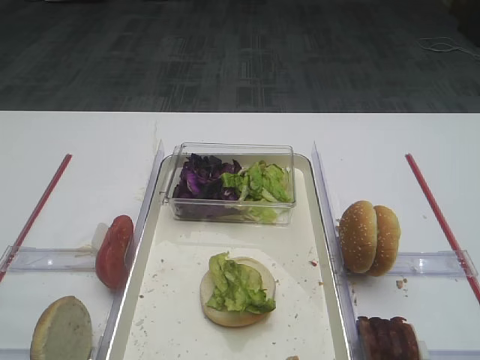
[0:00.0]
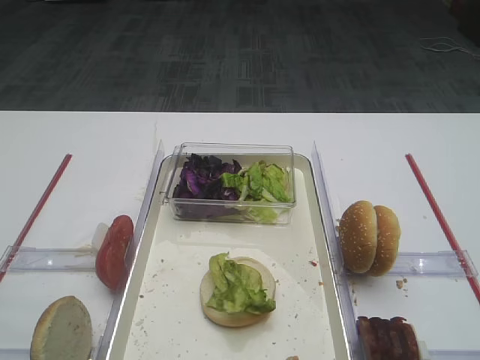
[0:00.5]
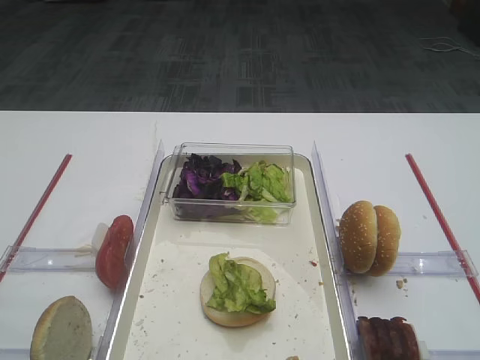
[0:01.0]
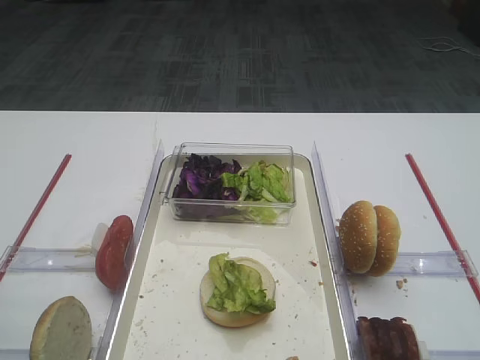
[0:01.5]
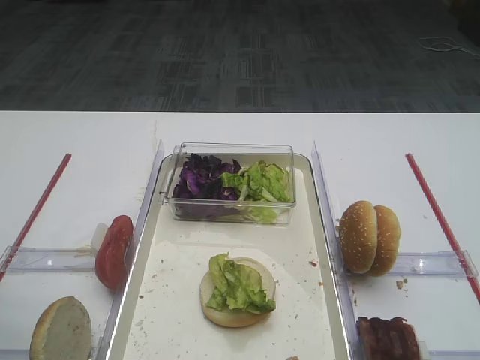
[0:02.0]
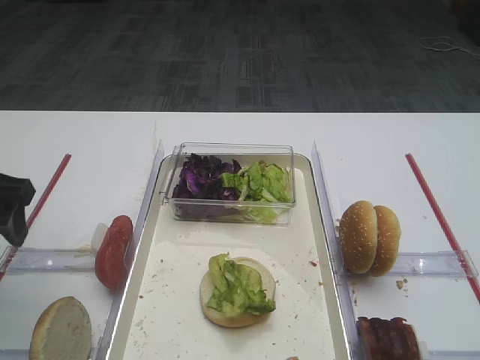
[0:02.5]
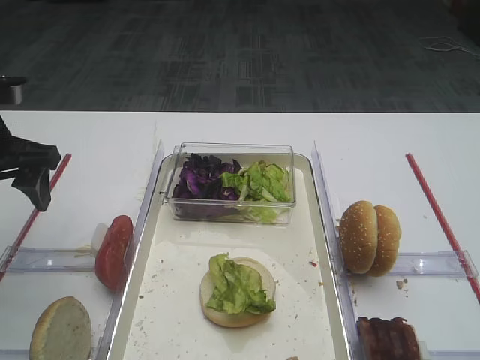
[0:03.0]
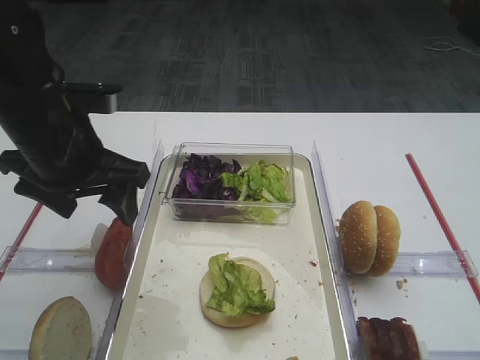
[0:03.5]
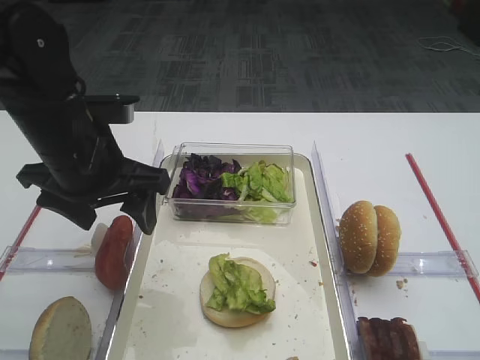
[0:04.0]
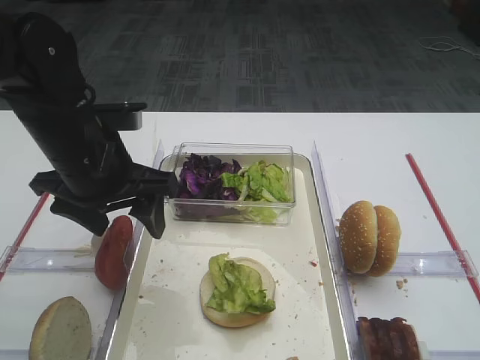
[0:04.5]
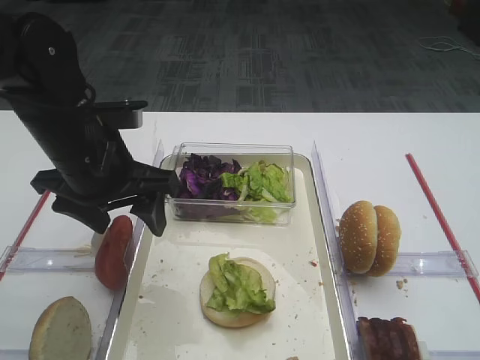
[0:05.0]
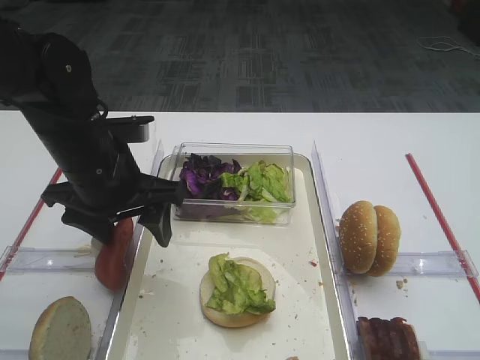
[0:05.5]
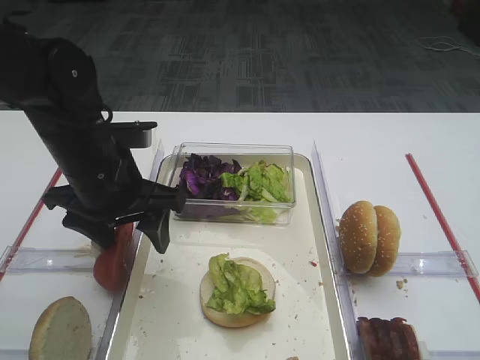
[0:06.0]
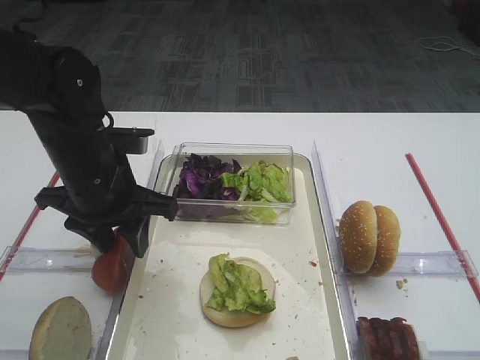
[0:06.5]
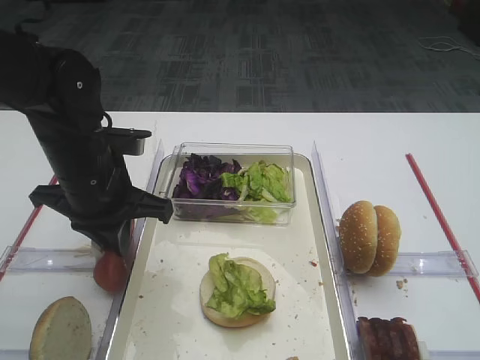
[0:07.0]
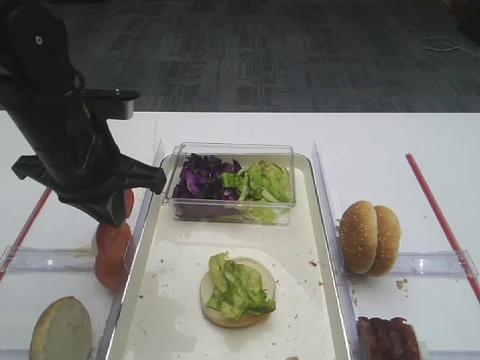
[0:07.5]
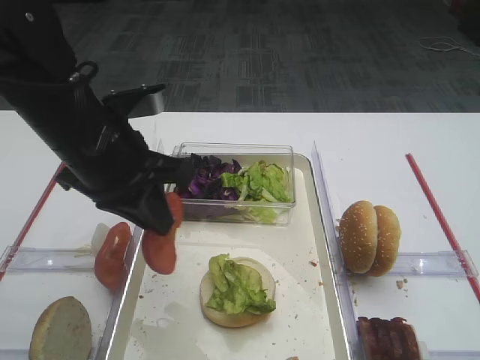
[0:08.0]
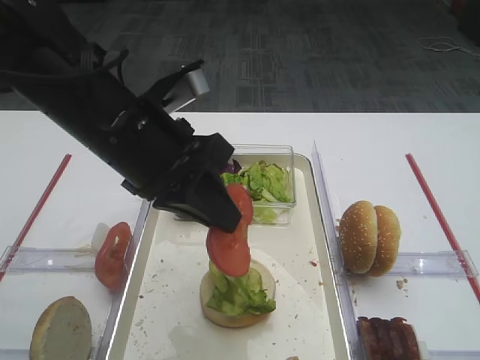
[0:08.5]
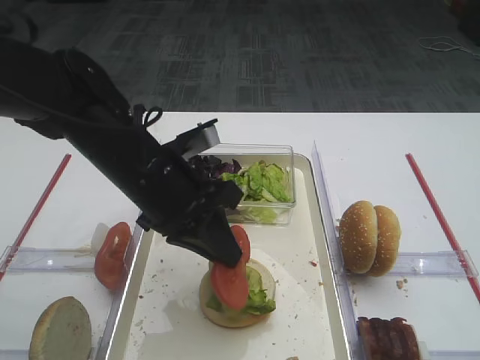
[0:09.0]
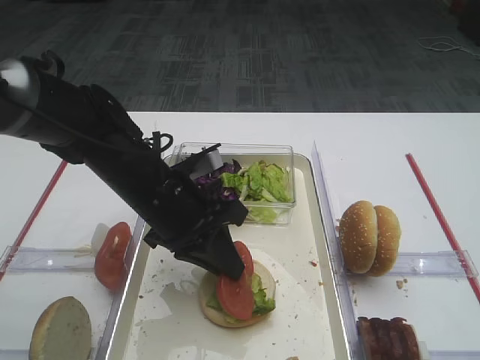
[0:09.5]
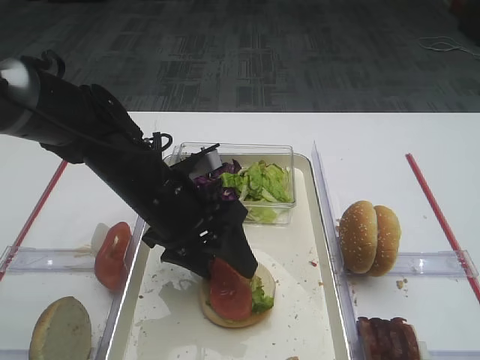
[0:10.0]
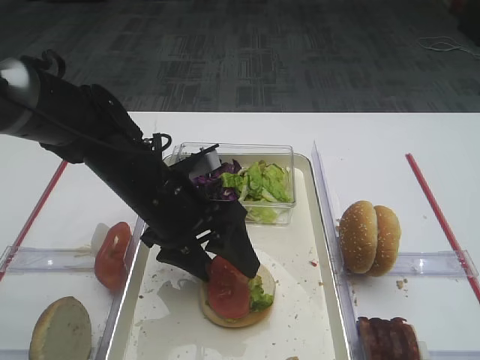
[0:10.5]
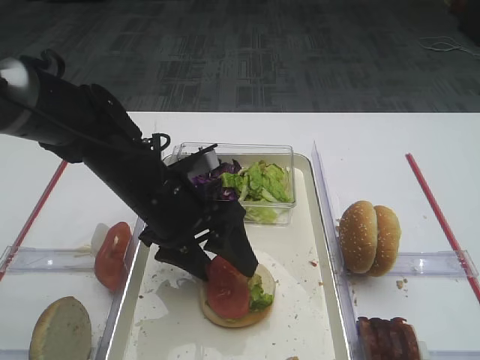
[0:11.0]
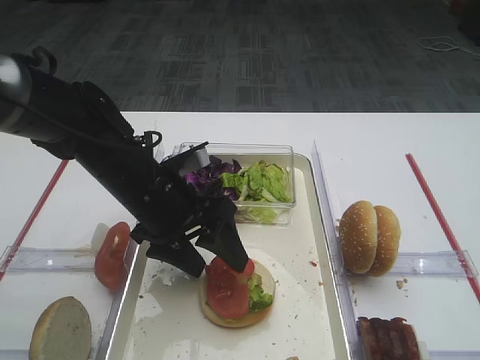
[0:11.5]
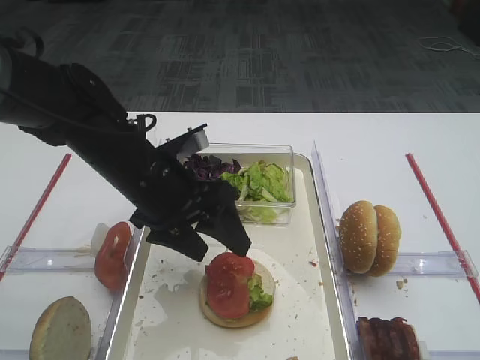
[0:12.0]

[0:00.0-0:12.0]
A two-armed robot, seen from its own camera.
Step, 0:00.0 to 0:07.5: Pick up the tomato slice with the left gripper.
0:02.0 to 0:04.0: The right gripper closes its fingers, while the left gripper is displaced forward and to the right by approximately 20 cm.
0:04.0 to 0:06.0: There are only small adjustments of the grippers.
0:06.0 to 0:08.0: The left gripper moves approximately 5 cm, and closes up.
0:08.0 to 0:10.0: The left gripper heads downward and to the right, covering some 10 cm, and opens.
0:10.0 to 0:12.0: The grippers make only small movements.

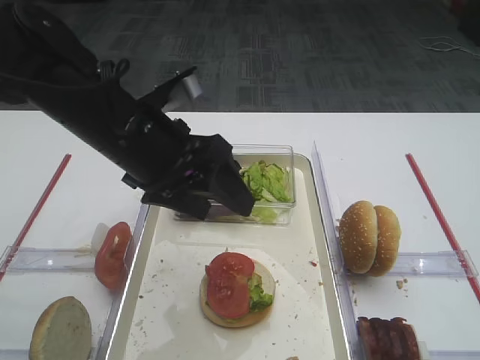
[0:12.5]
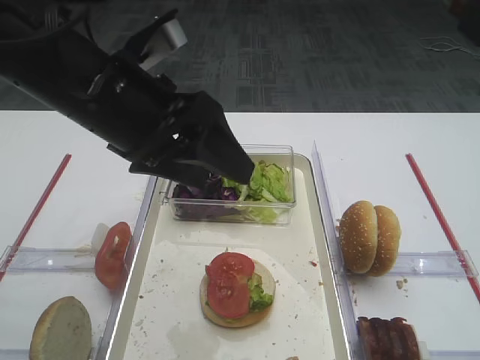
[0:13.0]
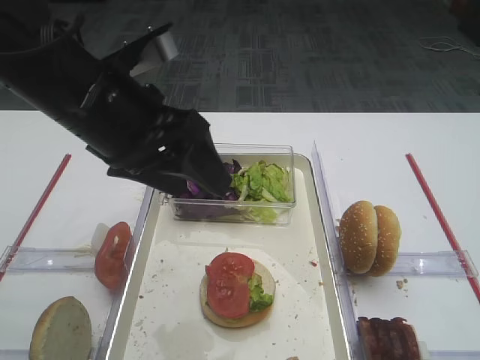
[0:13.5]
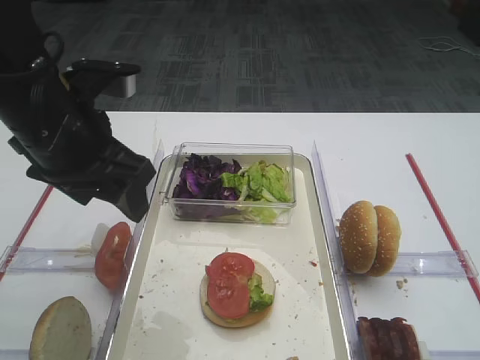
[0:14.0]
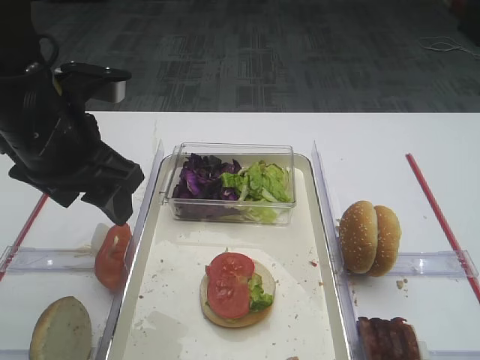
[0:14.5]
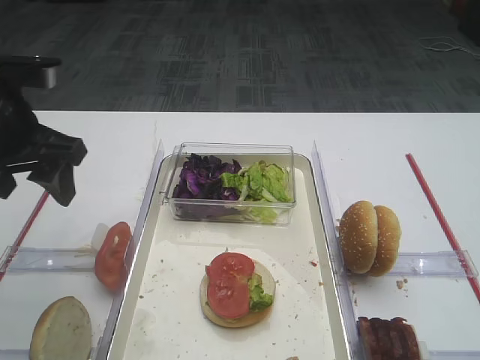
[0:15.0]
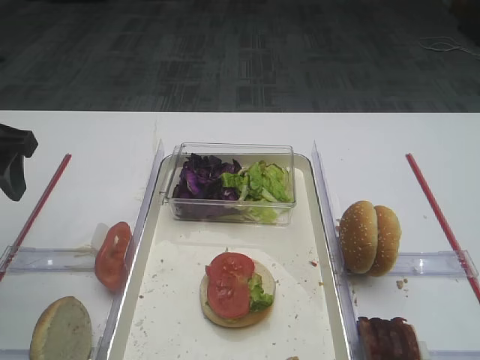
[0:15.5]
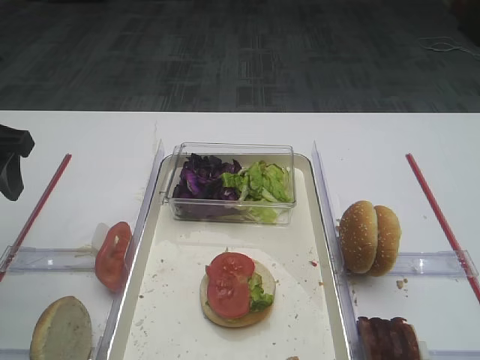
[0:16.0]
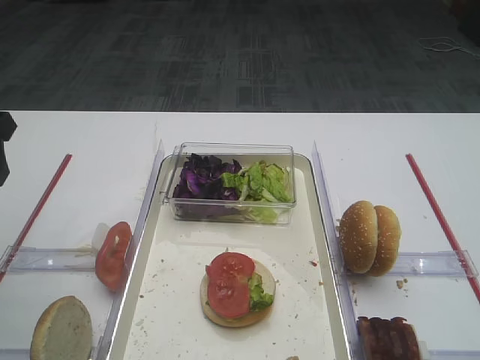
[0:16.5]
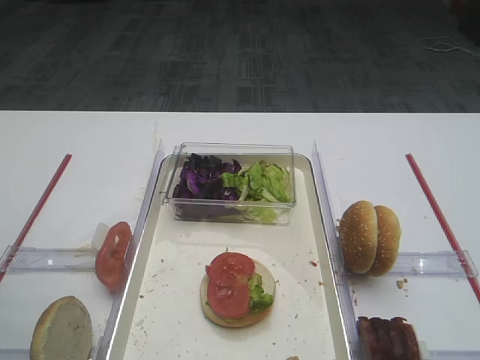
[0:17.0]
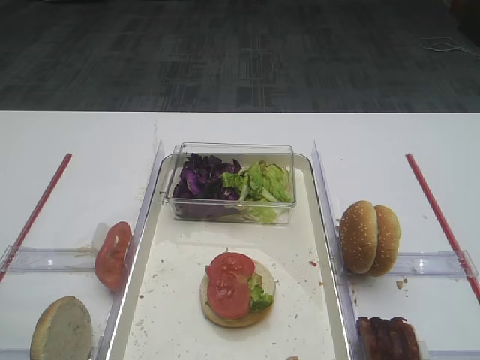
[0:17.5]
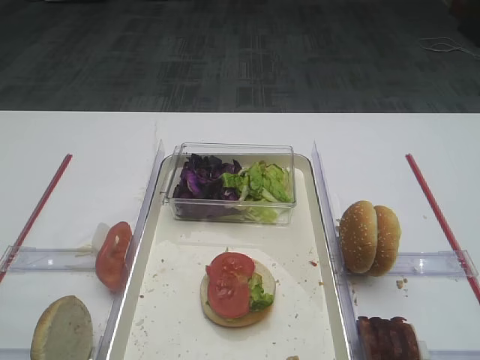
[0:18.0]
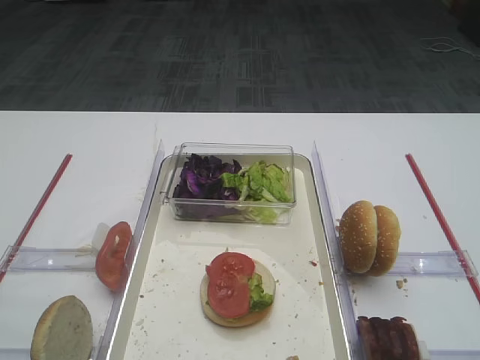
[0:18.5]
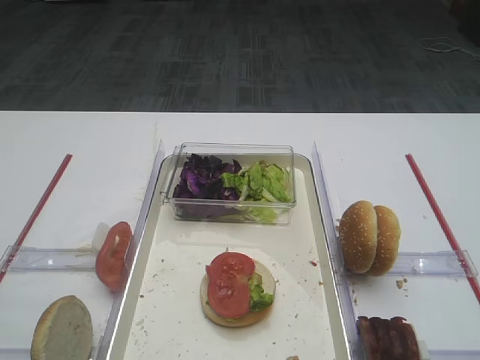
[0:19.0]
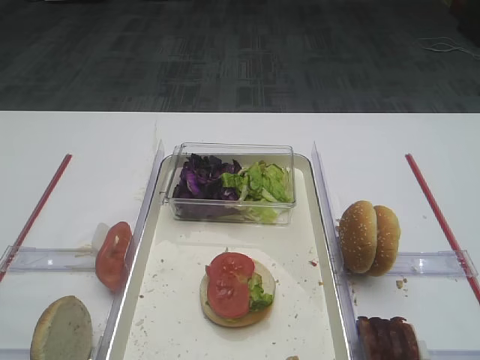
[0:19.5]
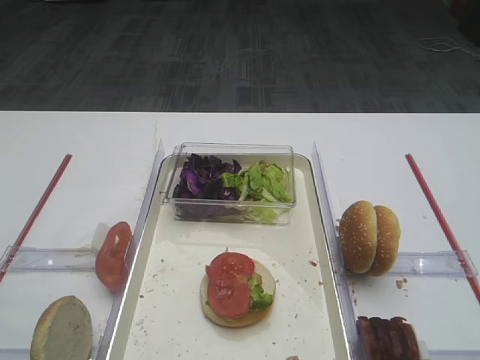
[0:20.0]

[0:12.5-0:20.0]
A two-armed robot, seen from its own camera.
0:12.5 to 0:14.5: The left gripper travels to the left by roughly 5 cm.
0:14.5 to 0:16.5: The left gripper shifts some 10 cm to the left.
0:16.5 to 0:18.0: The left gripper moves backward, roughly 20 cm.

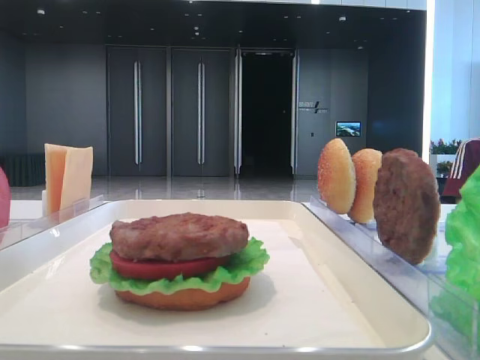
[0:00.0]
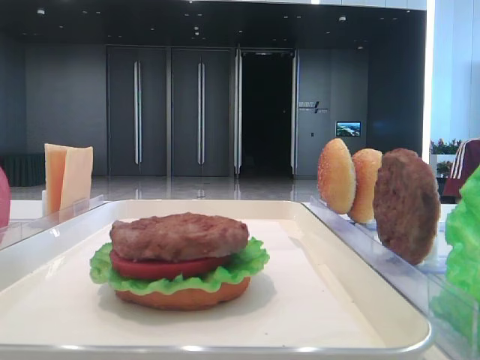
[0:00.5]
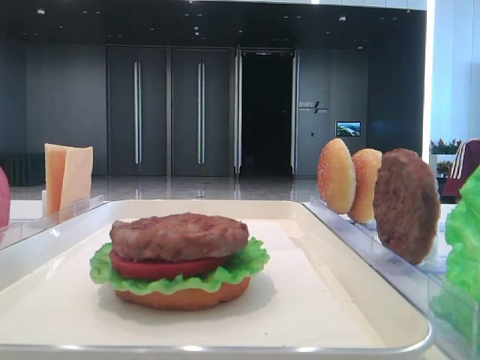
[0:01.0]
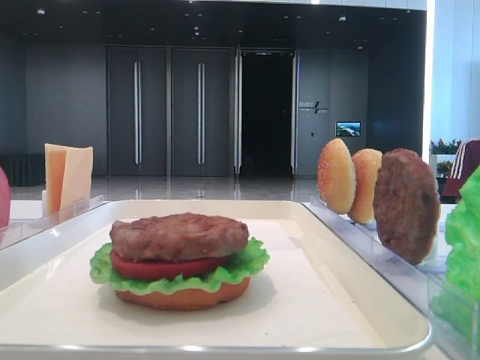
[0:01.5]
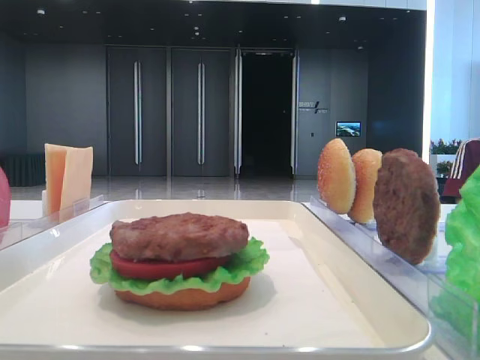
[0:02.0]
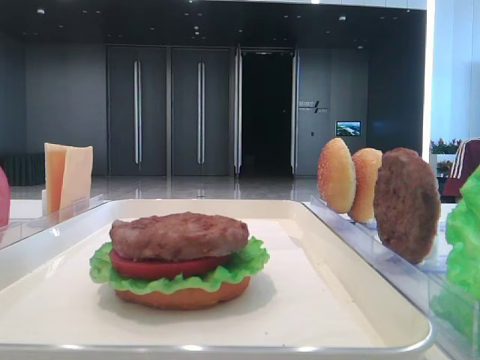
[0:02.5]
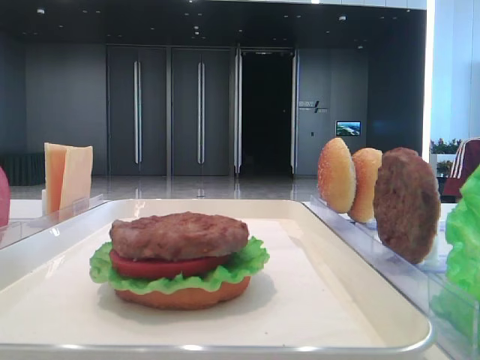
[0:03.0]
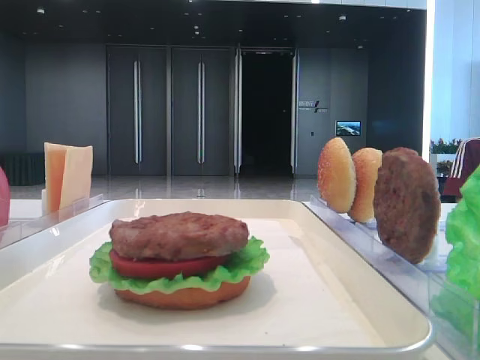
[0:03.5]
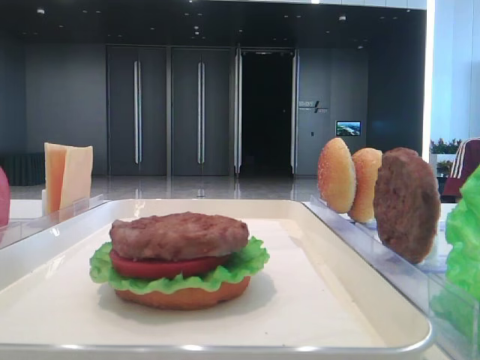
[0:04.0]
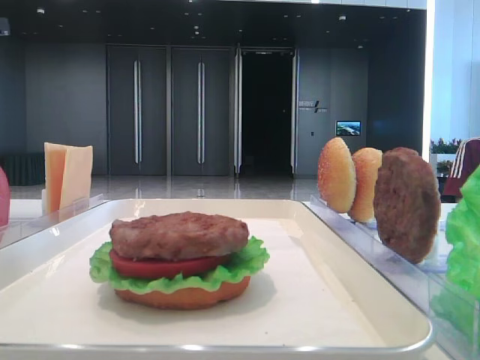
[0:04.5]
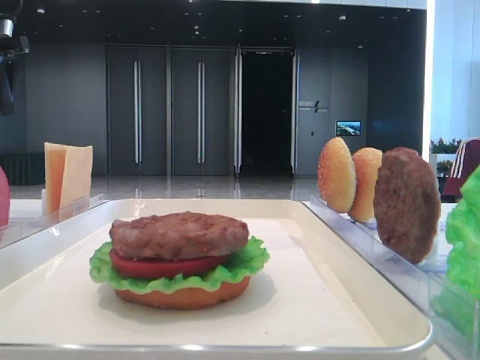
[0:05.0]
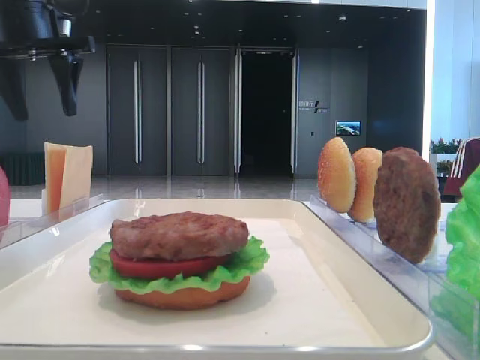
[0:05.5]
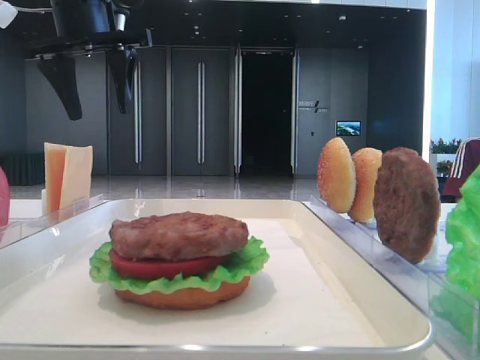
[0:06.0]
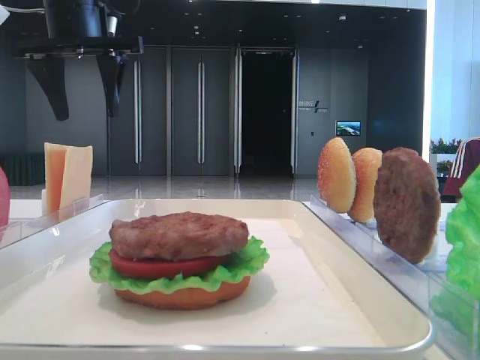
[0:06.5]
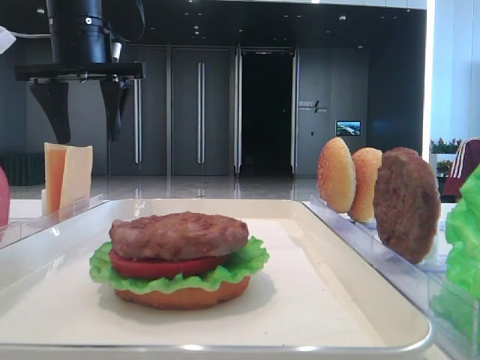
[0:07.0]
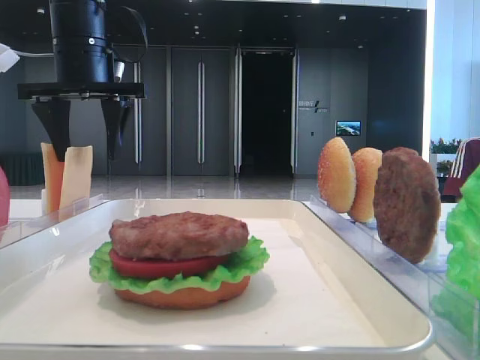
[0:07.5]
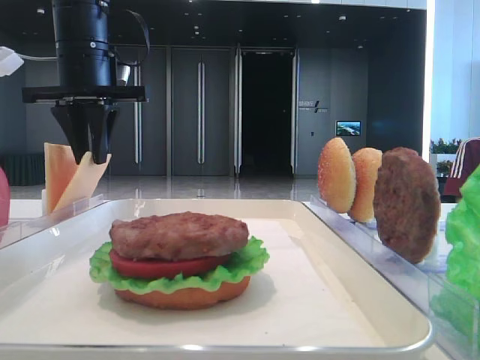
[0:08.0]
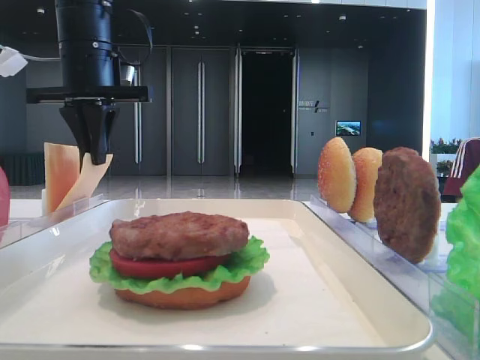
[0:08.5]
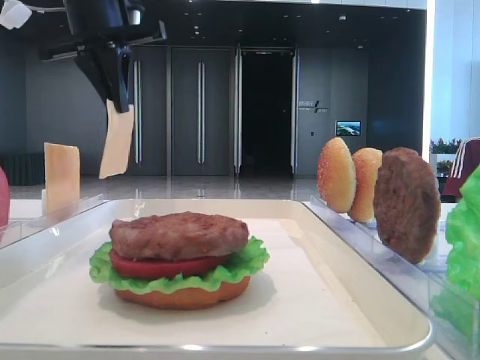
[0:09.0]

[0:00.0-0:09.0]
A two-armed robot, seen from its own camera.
Step, 0:00.0 to 0:08.0: Pick up the cheese slice with the left hand.
0:02.0 to 0:04.5: The left gripper is displaced forward by roughly 35 cm.
0:04.5 to 0:07.0: The left gripper travels to the right by roughly 15 cm.
0:07.0 to 0:09.0: The left gripper closes.
